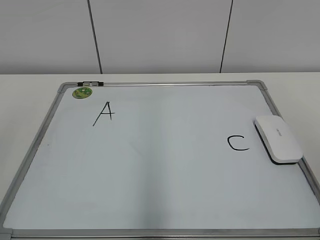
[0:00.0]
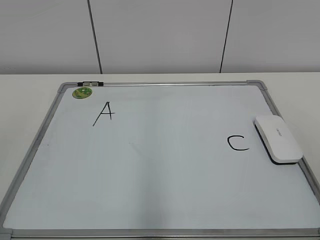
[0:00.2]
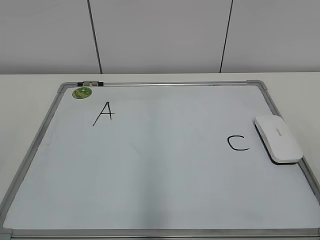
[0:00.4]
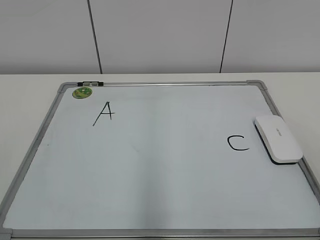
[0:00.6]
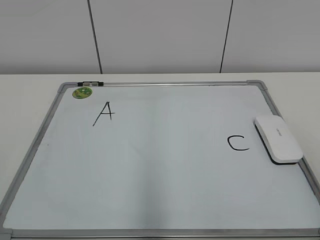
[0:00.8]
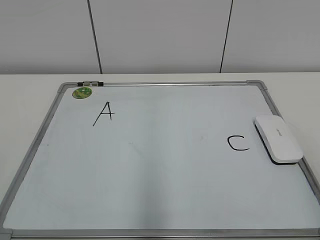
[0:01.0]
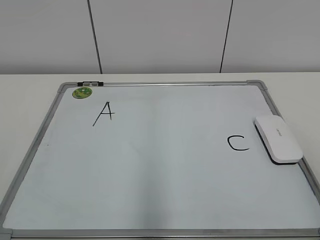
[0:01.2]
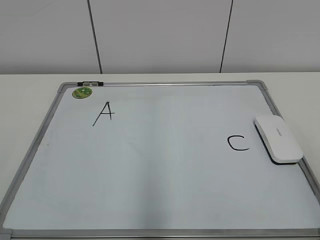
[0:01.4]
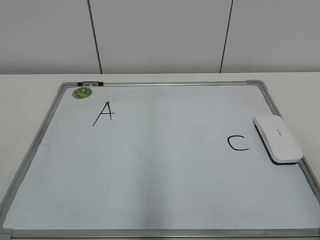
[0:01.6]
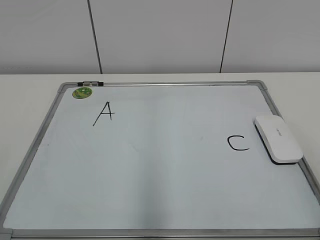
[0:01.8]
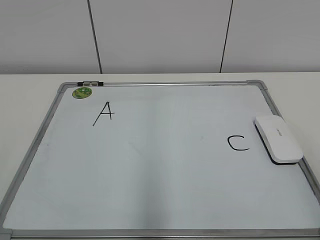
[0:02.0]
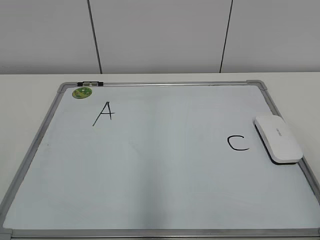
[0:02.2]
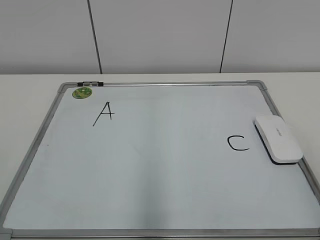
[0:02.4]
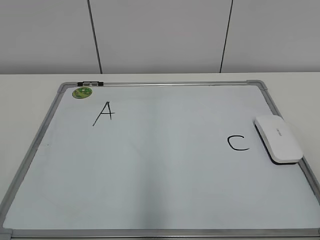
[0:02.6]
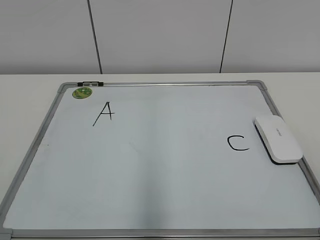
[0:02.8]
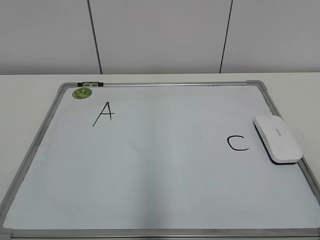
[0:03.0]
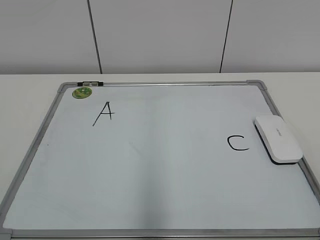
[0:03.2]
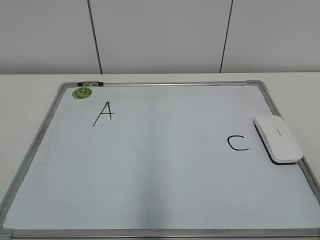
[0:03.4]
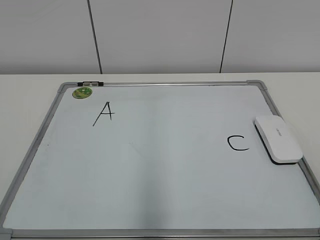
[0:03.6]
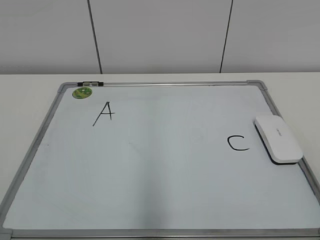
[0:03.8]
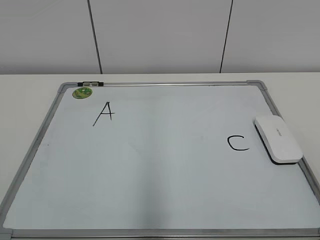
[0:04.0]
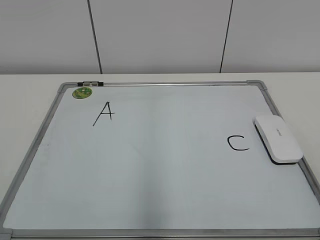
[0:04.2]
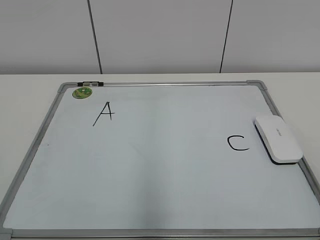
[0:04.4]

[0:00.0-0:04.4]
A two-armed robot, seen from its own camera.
Task of the whole recording: pick up the eraser on the blackboard and erase the letter "B".
0:03.0 to 0:04.4: Neither gripper changes place.

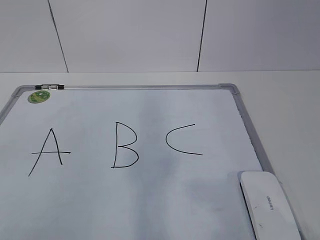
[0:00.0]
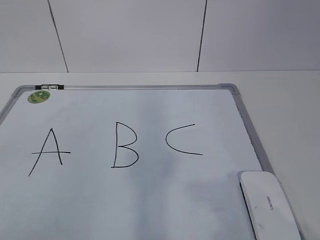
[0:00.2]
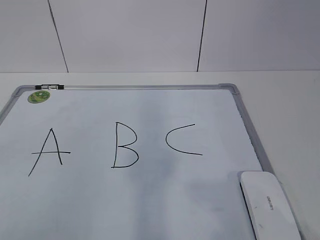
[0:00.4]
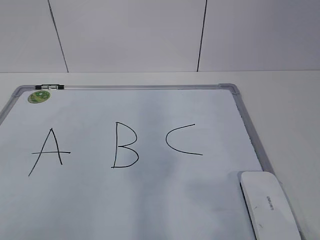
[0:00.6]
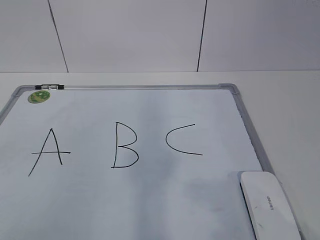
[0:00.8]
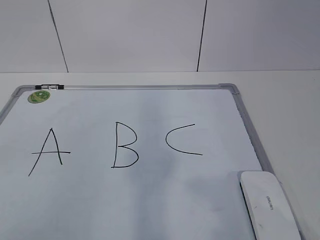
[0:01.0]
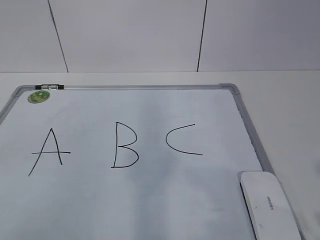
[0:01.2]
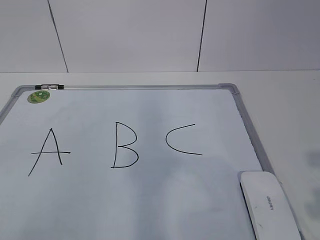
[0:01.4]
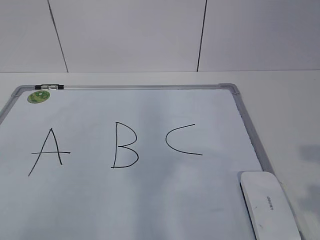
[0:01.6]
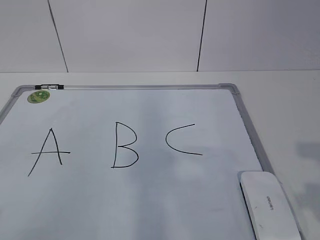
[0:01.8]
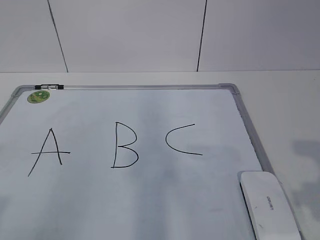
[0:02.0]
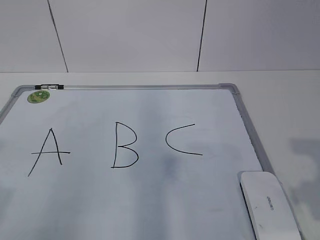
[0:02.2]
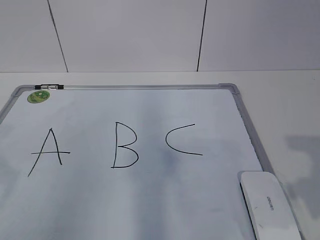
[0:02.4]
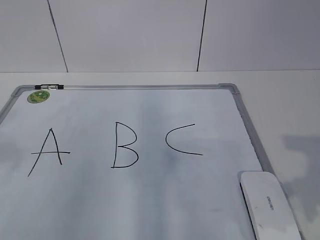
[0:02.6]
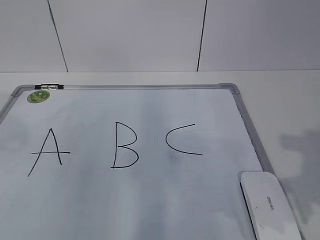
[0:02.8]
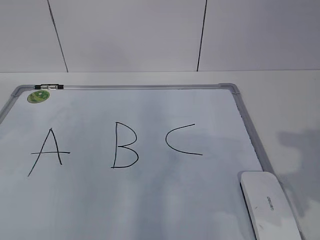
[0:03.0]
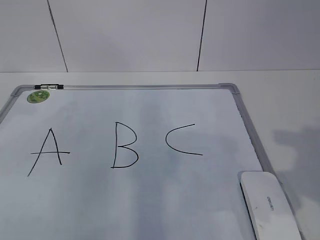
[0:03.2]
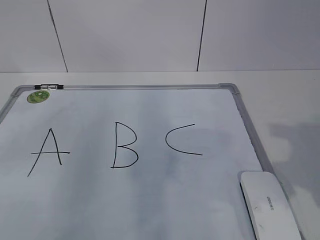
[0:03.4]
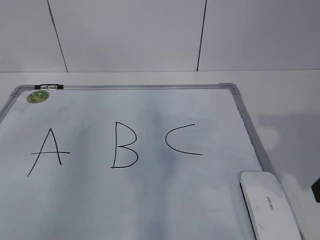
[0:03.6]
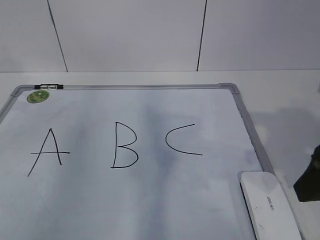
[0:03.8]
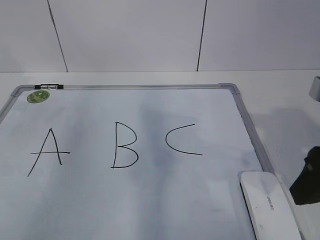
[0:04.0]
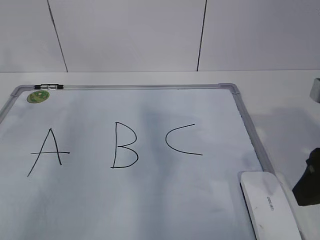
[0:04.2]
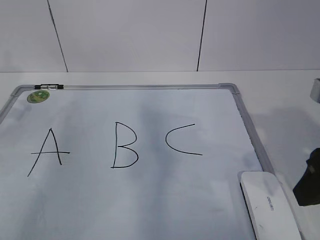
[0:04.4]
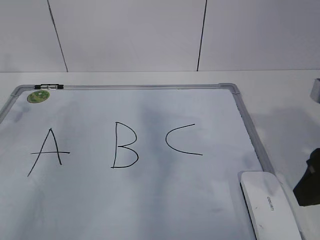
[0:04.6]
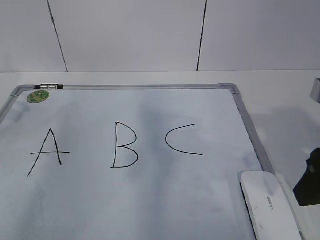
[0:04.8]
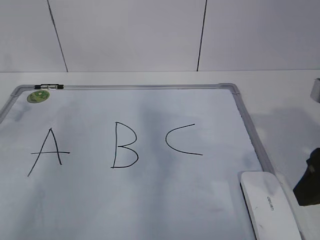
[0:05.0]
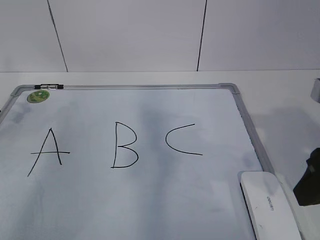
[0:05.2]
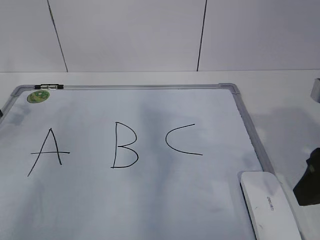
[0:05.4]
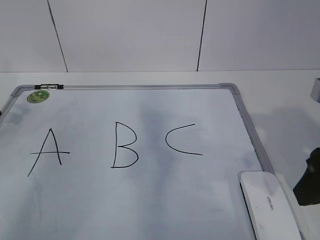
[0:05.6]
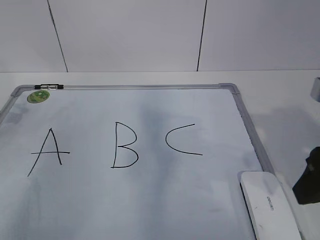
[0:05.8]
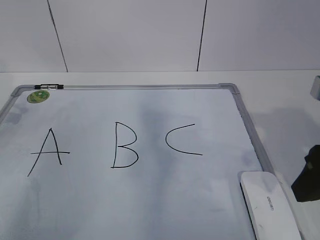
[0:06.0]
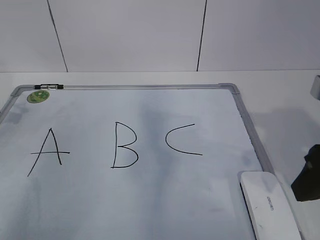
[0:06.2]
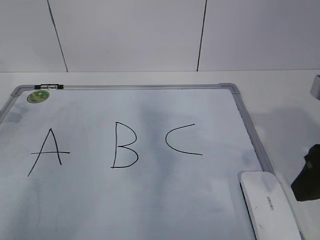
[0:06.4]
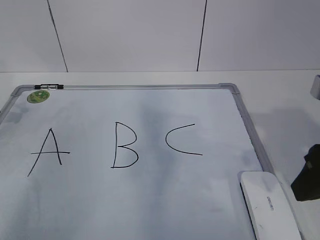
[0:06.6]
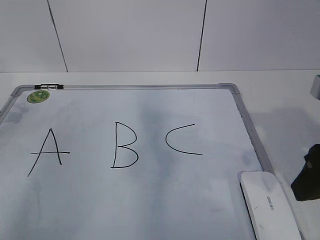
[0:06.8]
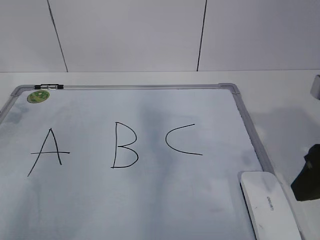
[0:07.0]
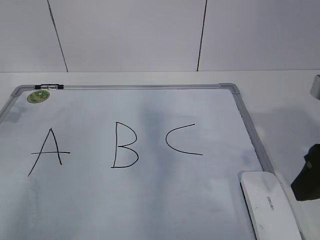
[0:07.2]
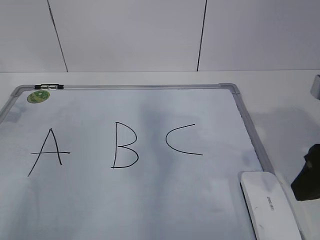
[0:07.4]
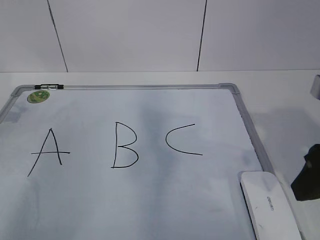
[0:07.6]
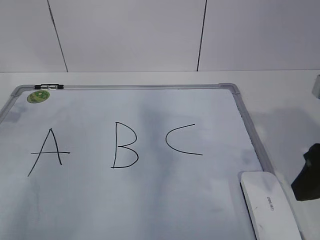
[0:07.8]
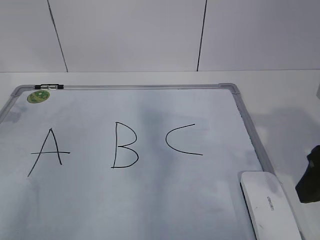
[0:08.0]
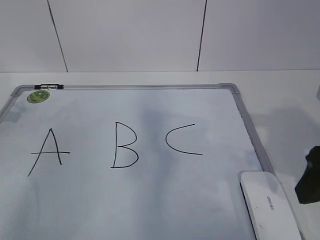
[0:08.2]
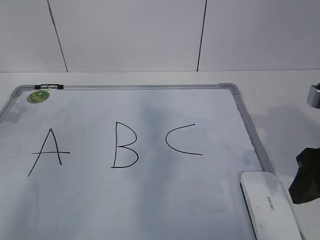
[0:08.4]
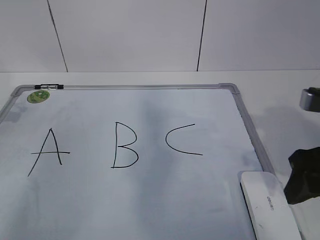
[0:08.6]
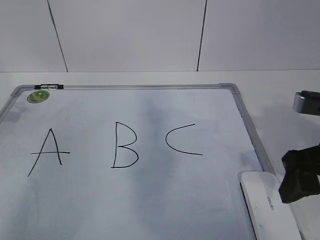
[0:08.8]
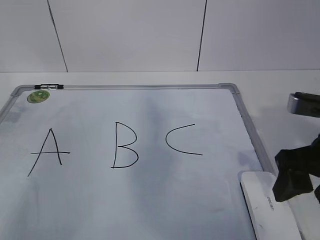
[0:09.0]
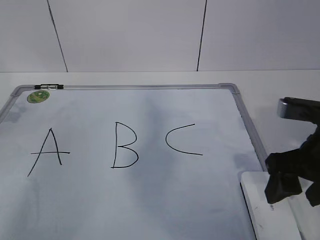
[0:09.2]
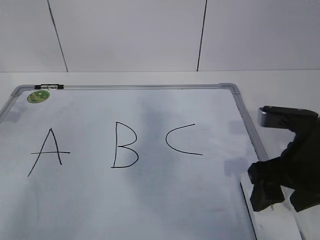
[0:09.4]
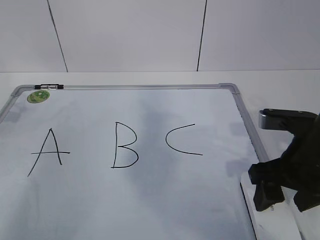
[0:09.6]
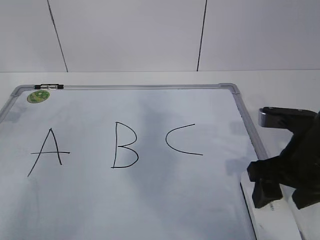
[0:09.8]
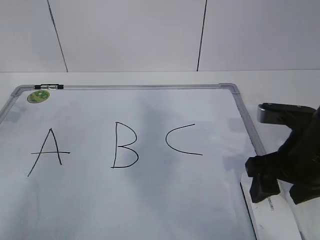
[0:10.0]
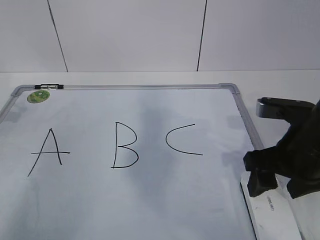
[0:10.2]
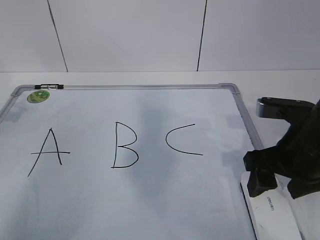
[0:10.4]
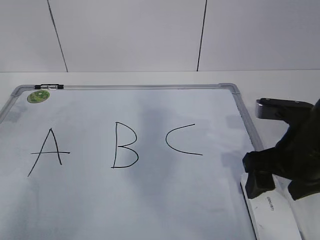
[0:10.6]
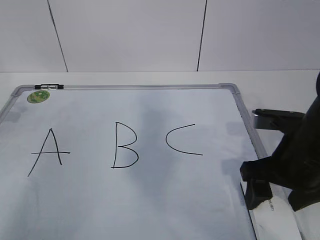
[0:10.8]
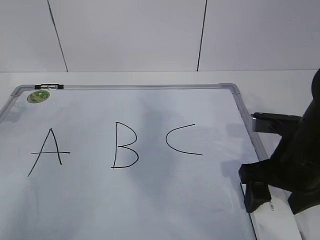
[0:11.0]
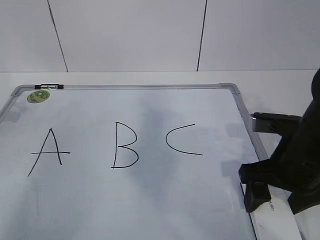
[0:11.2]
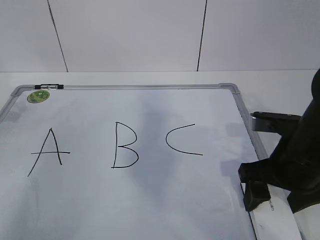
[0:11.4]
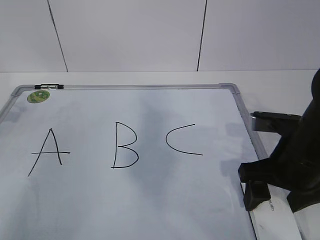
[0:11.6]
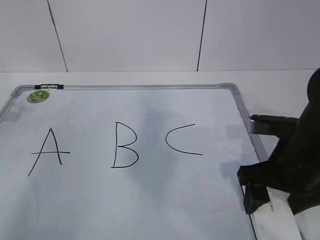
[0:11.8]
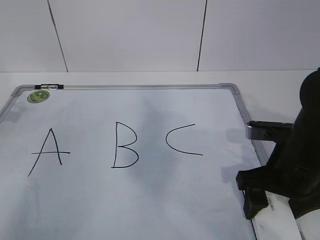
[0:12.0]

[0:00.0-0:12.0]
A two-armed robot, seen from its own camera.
Task of the whole recording: pick up the eraser on the blackboard and erase the letter "B".
Step, 0:00.0 to 0:05.4: Hold the drawing board steady with your left hand.
Step, 0:05.6 to 0:10.0: Grab the eraser with your right hand.
0:01.6 to 0:03.0: The right gripper goes roughly 10 cm forward.
0:03.0 to 0:04.4: The right gripper ends up approximately 5 cm from where it was. Meanwhile the left gripper goes some 20 cm forward and downward.
0:07.6 to 0:09.0: The right gripper ends up approximately 5 cm from where it was, and opens up.
0:09.0 to 0:10.4: There are only small adjustments of the grippers.
0:10.4 to 0:12.0: There are only small adjustments of the grippers.

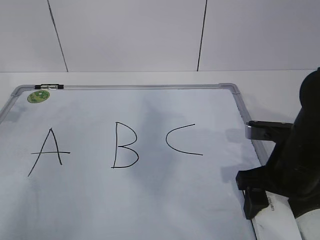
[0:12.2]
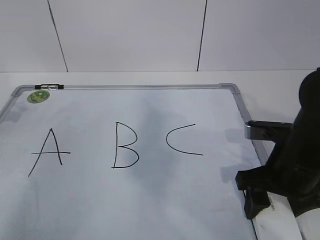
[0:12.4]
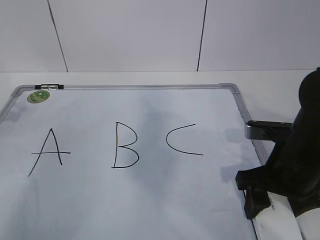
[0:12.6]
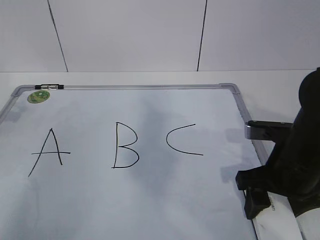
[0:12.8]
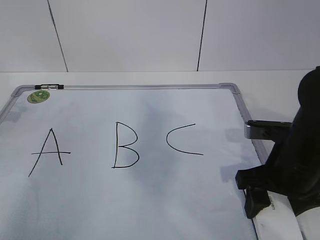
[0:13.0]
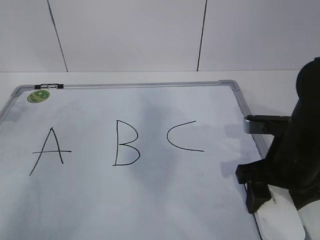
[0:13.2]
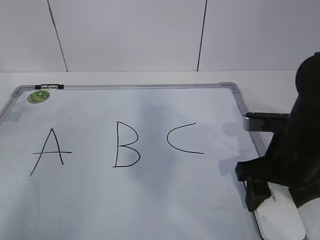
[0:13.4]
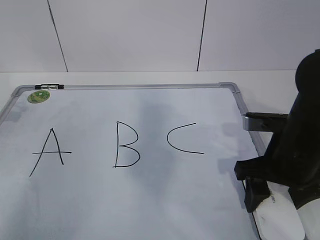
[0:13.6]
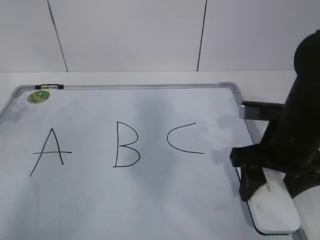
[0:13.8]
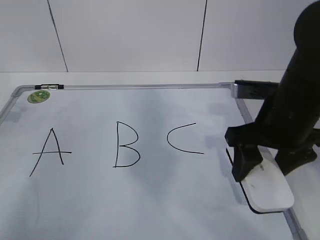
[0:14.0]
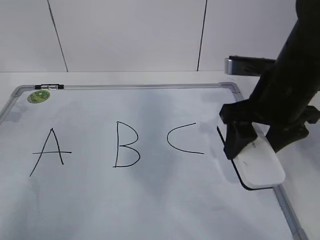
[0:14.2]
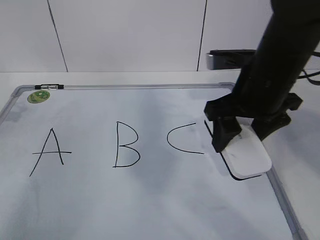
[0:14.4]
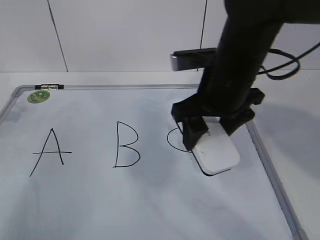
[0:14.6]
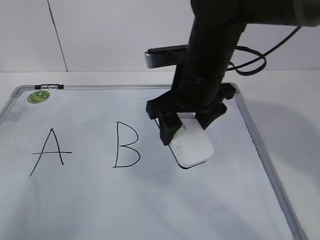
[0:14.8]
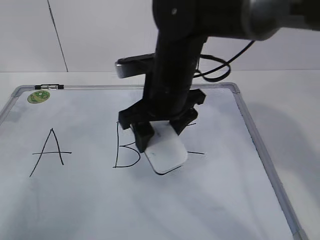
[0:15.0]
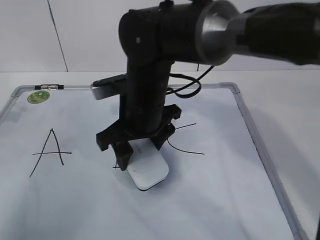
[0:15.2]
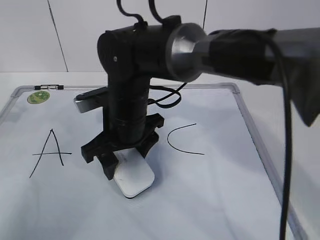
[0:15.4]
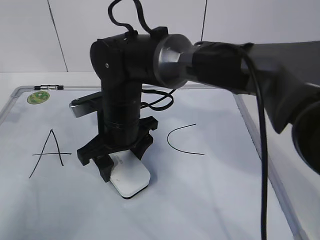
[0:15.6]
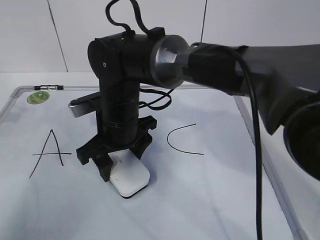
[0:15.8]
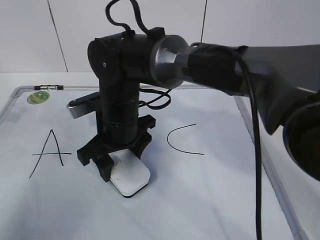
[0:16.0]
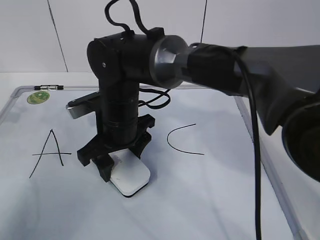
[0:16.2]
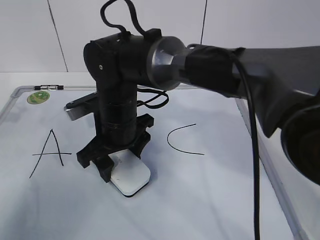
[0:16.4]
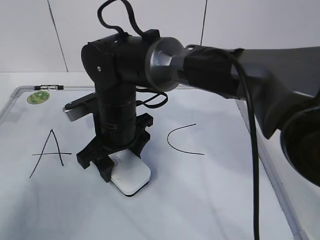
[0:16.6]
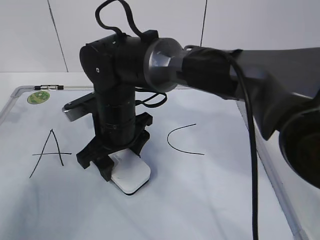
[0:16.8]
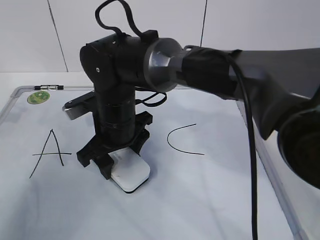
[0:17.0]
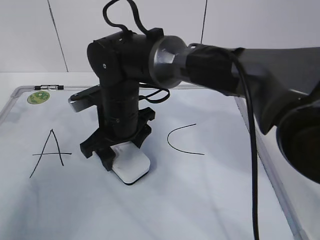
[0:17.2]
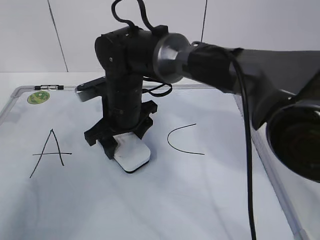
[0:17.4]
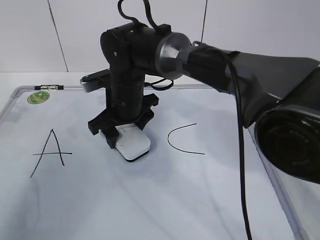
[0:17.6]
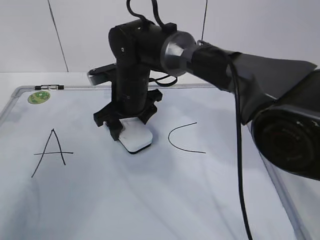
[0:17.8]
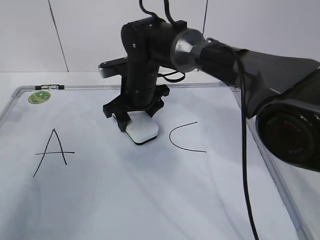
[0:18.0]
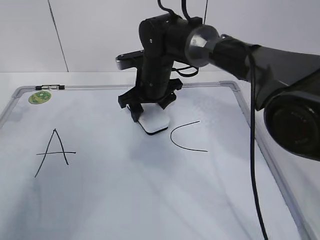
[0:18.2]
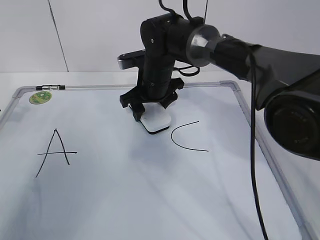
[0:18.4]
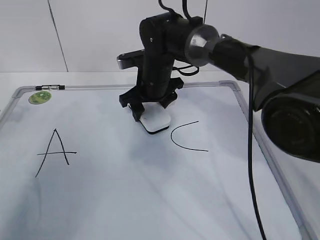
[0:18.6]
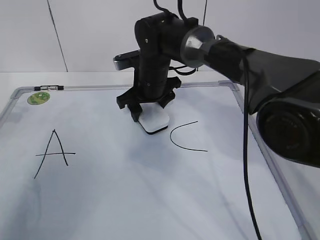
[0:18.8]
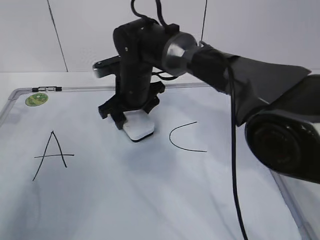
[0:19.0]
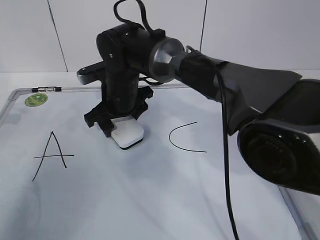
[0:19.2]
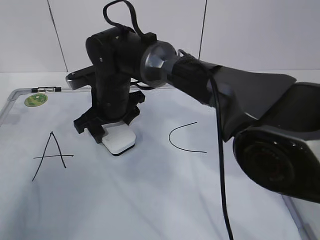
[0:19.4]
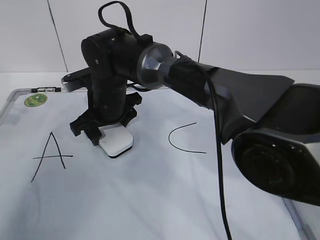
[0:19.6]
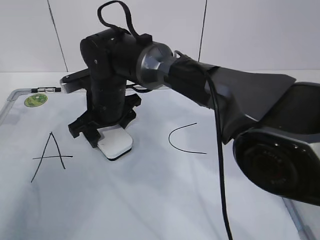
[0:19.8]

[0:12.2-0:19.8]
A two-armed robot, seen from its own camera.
Task of the whole recording: pick up the eraser on the blackboard and erase the letter "B".
0:12.2 to 0:13.8: The right gripper closes its fingers.
0:13.8 to 0:15.2: The right gripper travels to the left by roughly 20 cm.
0:15.2 to 0:16.8: The right gripper ends up roughly 5 cm from where it was.
0:16.8 to 0:18.2: The right gripper goes roughly 15 cm forward and to the right.
0:18.2 to 0:19.8: The right gripper moves to the left and backward, about 10 cm.
